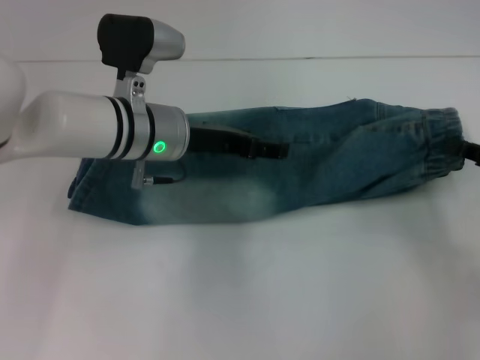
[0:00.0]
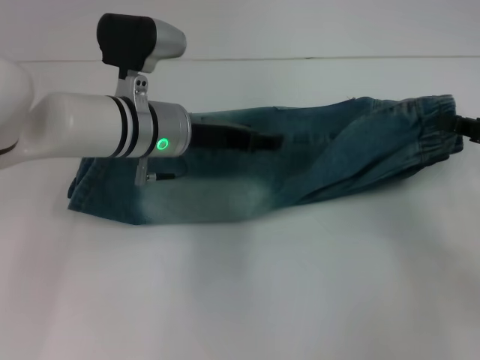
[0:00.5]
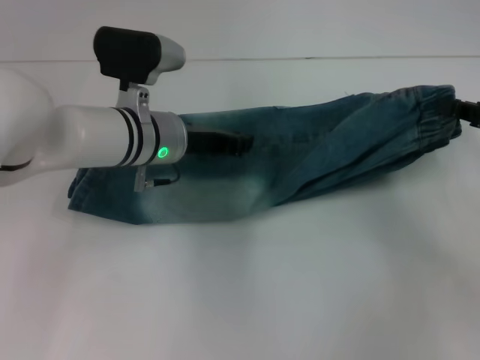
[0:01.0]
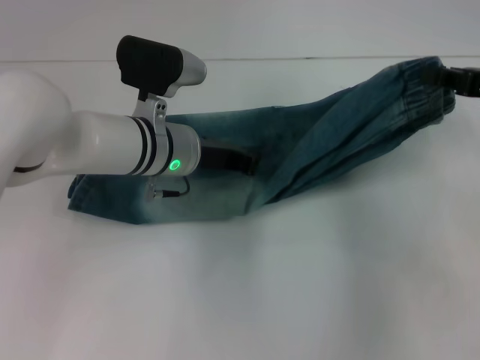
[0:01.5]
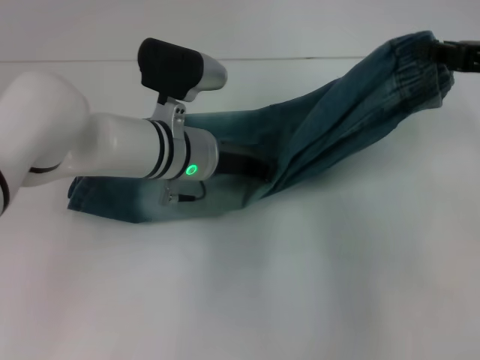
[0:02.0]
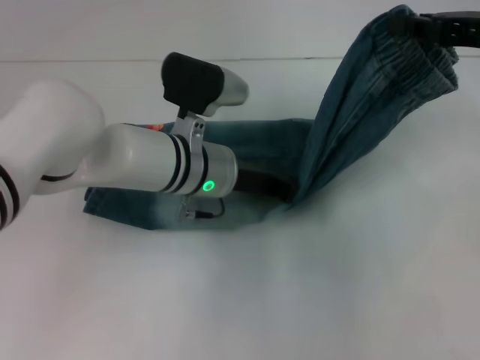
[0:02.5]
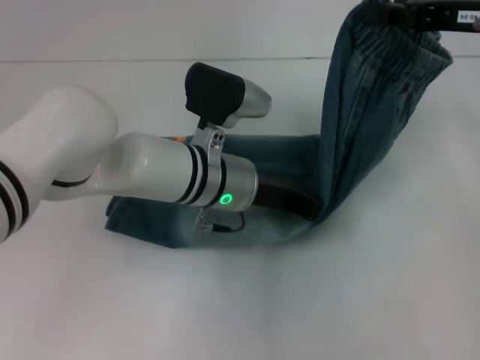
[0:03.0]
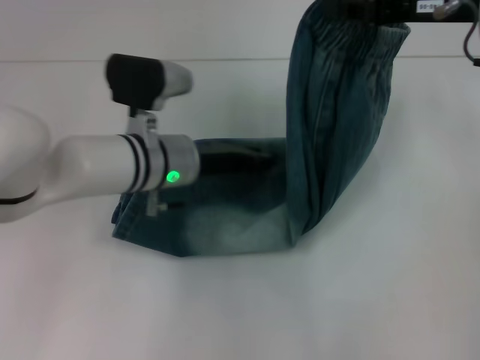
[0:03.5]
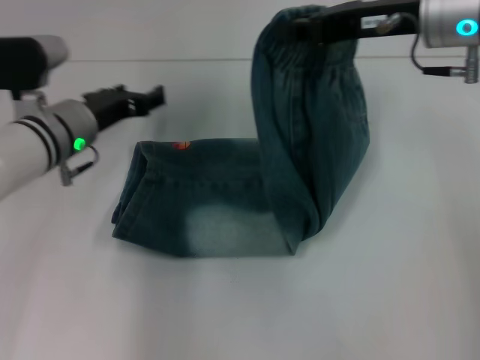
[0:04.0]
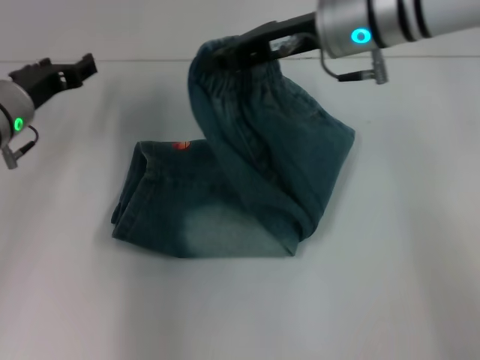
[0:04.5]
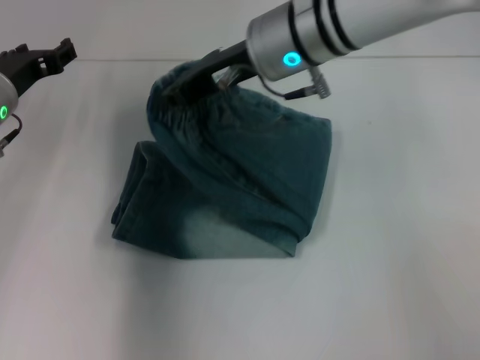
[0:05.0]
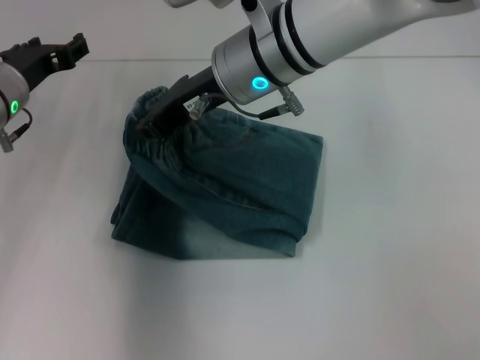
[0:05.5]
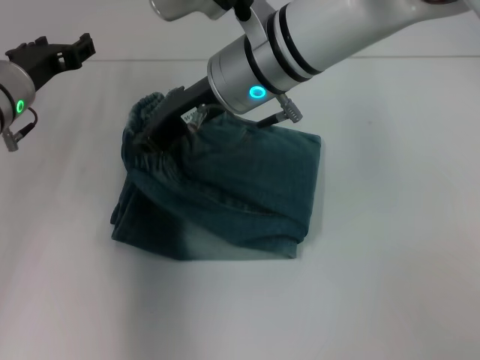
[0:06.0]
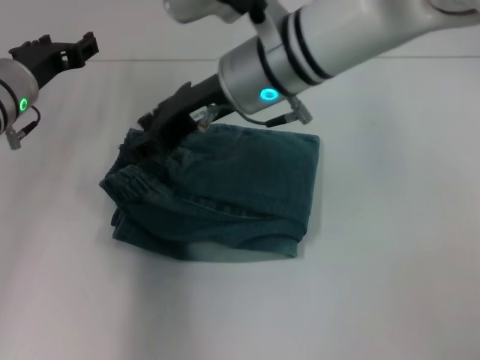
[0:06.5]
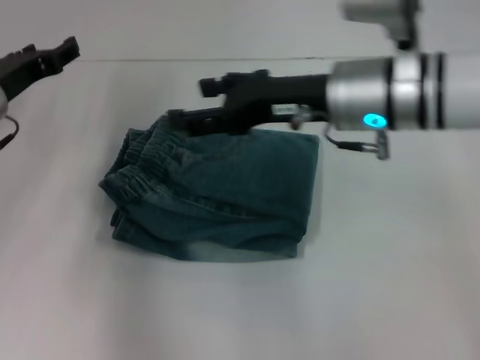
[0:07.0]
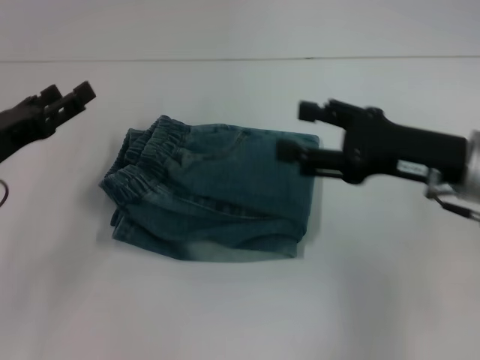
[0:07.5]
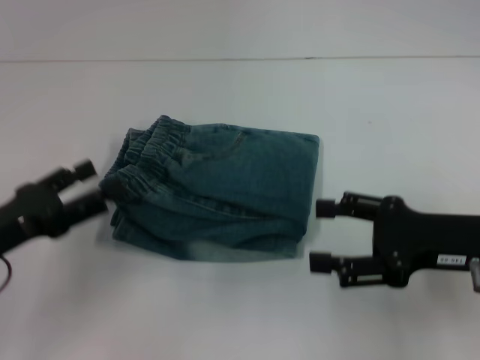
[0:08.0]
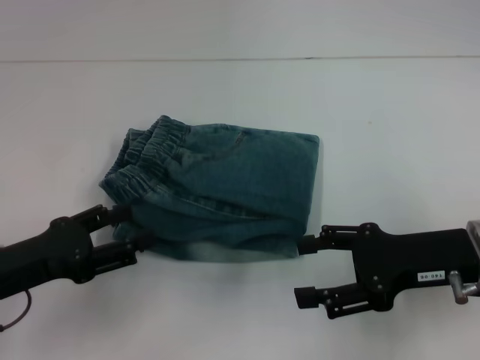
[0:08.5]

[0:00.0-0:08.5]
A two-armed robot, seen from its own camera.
Step, 0.0 to 3.0 s: Press the middle of the pants with your left hand.
Step, 3.5 to 8.0 s: Fold to the left with your right hand.
0.0 to 2.0 s: The right gripper goes about 10 cm upward and forward, while the left gripper closes its fingers.
2.0 to 4.0 s: Both grippers travel together to the left, about 10 cm. The left gripper opens up.
4.0 to 6.5 s: The left gripper moves approximately 5 cm. The right gripper travels to the left by some 15 cm, and opens up.
6.5 to 8.5 s: The left gripper heads backward, covering approximately 20 cm, while the right gripper shifts approximately 25 cm to the right, backward and downward, and opens its fingers.

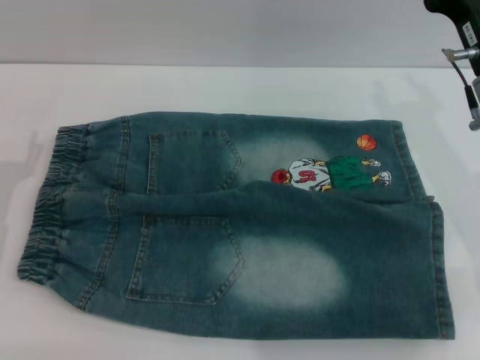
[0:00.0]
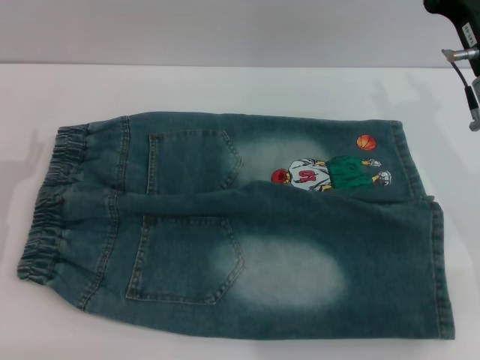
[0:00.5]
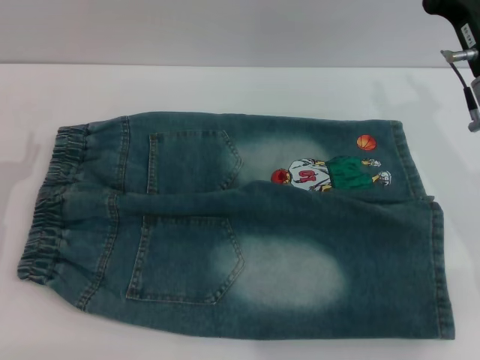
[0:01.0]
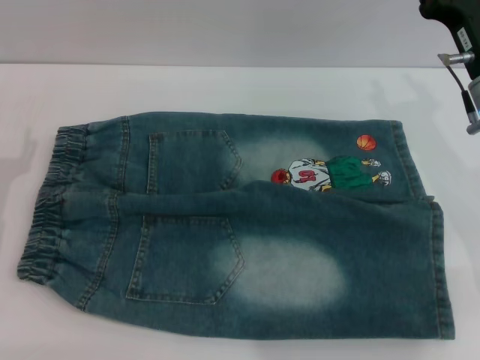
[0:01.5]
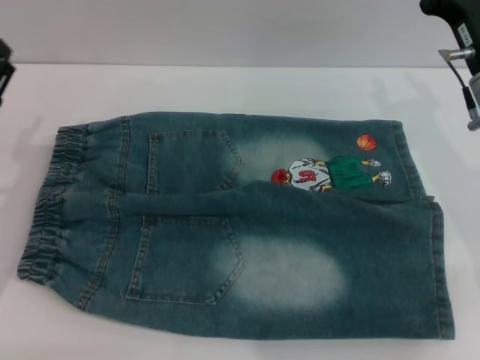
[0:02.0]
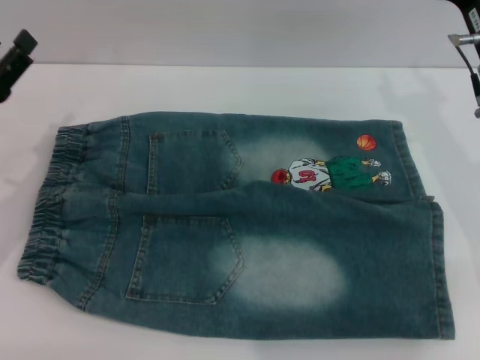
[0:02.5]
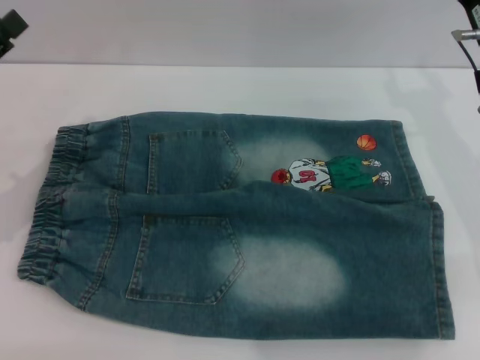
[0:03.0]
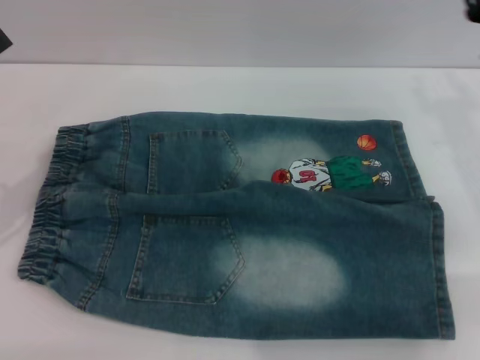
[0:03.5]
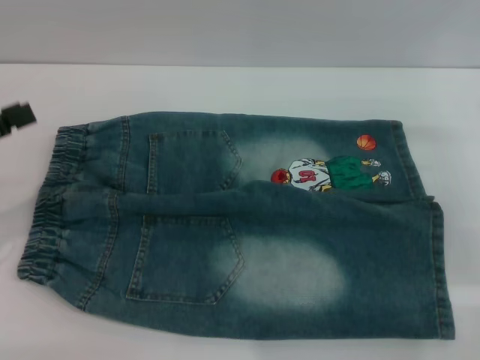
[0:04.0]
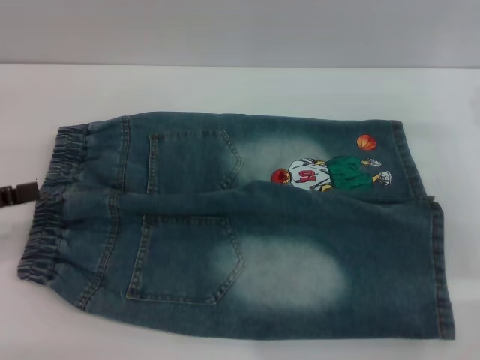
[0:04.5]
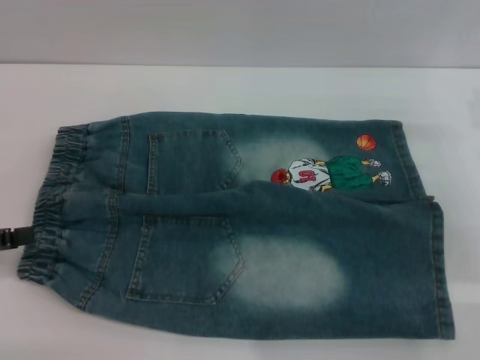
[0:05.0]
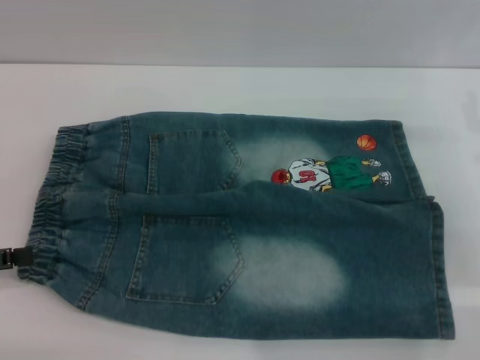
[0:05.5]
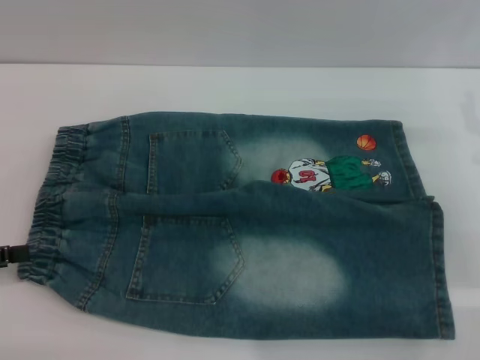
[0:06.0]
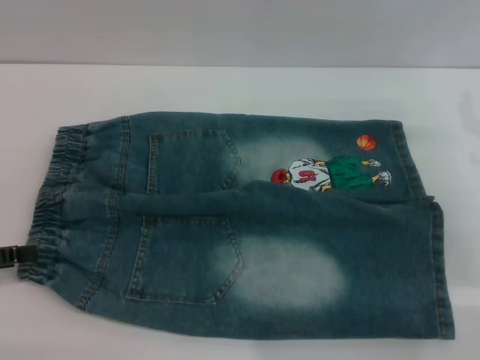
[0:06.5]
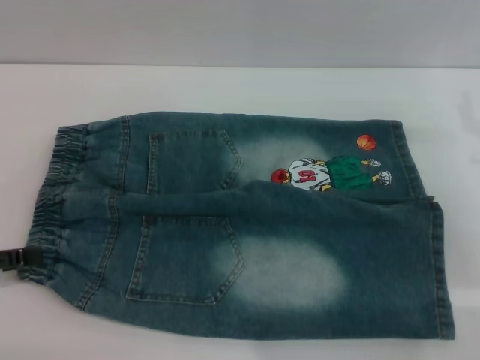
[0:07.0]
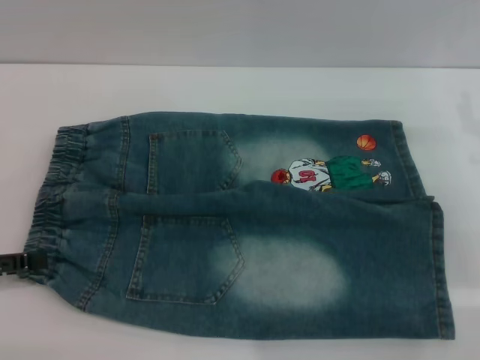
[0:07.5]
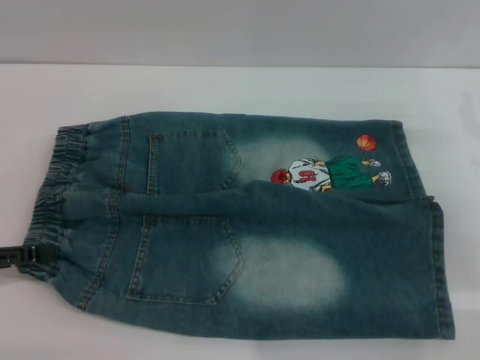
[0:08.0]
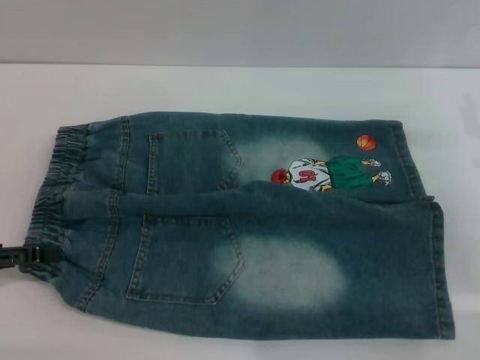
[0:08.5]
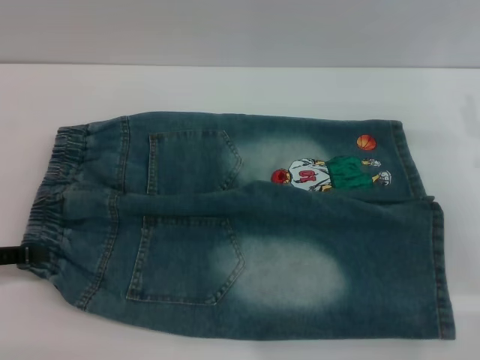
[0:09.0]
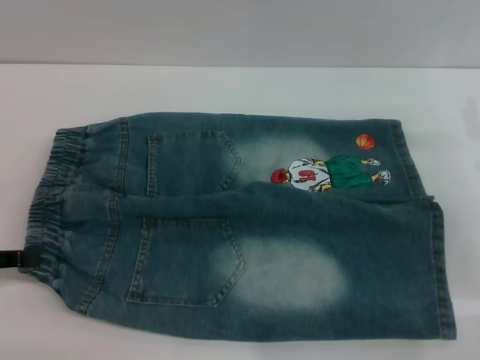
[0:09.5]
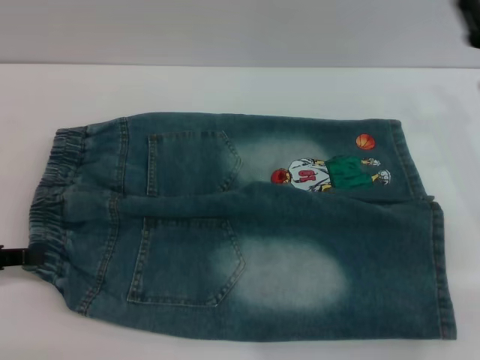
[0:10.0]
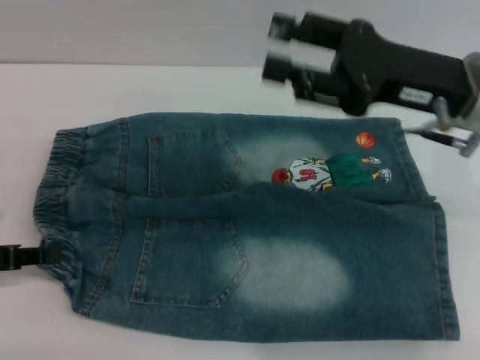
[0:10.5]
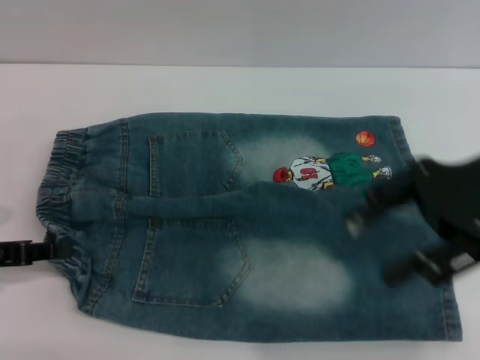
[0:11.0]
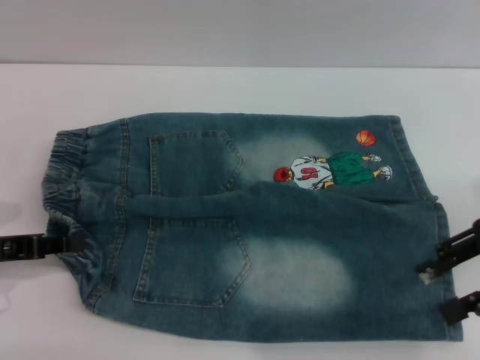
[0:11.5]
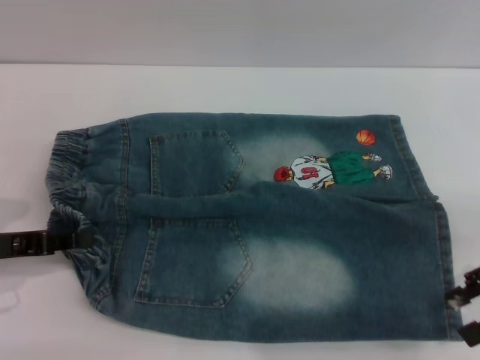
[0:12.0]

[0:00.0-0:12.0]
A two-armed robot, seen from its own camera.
0.0 to 2.0 s: The grippers stay close to where they were, moving slightly.
2.0 to 4.0 s: The right gripper travels to the right by about 10 cm, while the left gripper heads upward and to the left, covering about 10 cm.
4.0 to 6.0 s: The left gripper changes place by roughly 5 cm.
8.0 to 10.0 s: The left gripper closes up.
10.0 to 12.0 s: The right gripper travels to the right and backward by about 10 cm.

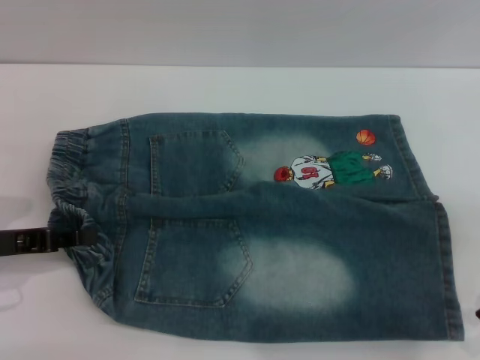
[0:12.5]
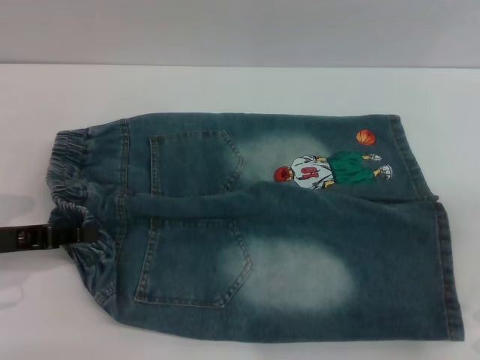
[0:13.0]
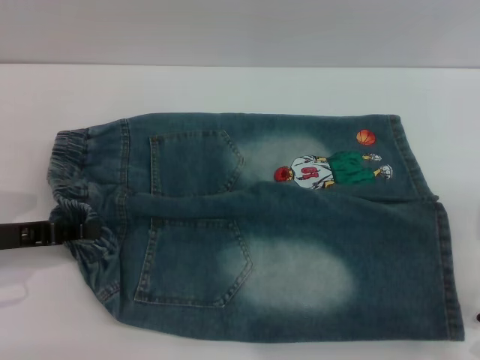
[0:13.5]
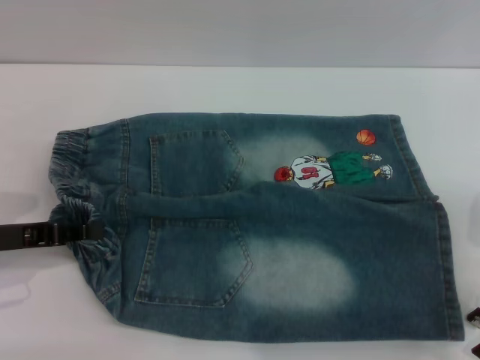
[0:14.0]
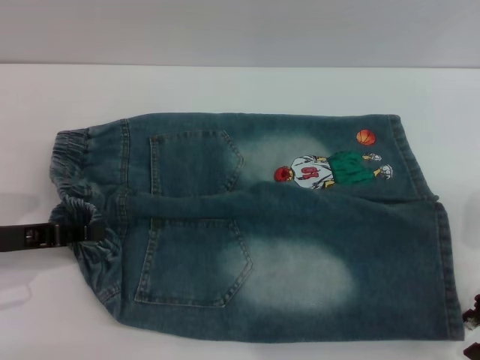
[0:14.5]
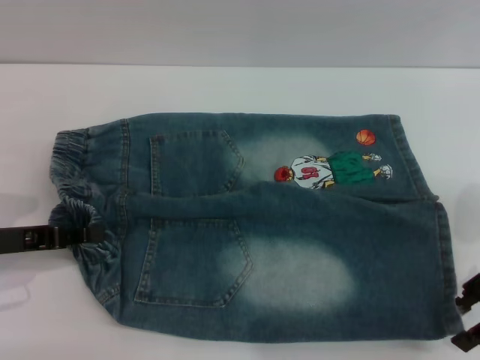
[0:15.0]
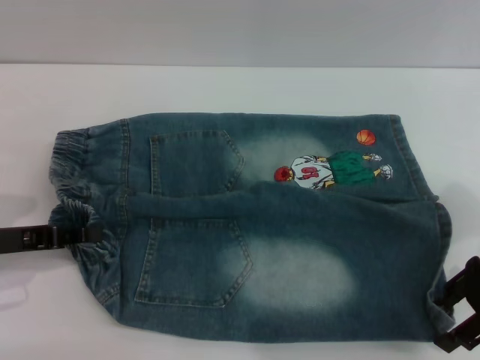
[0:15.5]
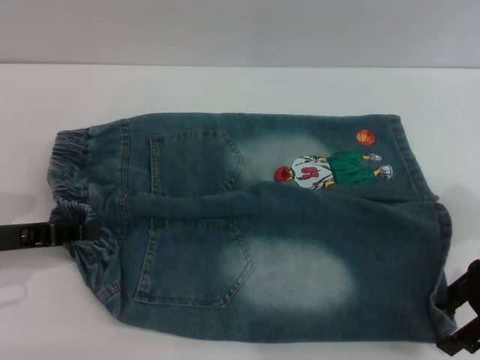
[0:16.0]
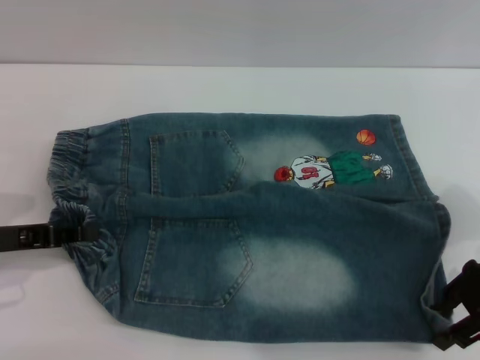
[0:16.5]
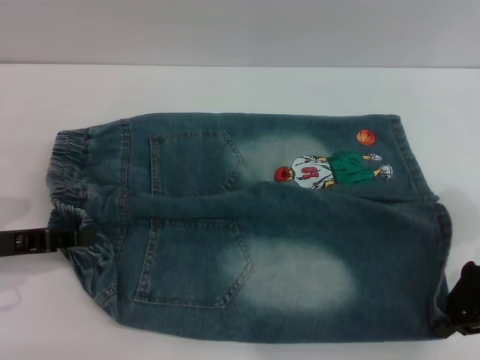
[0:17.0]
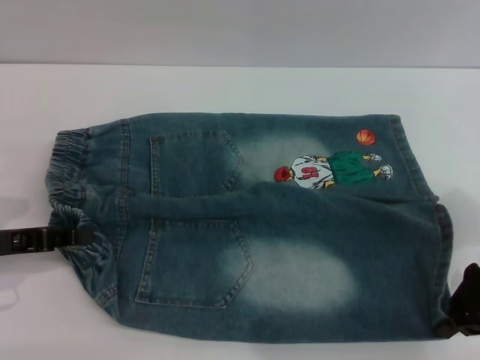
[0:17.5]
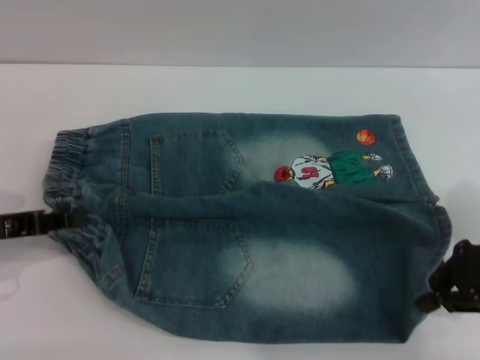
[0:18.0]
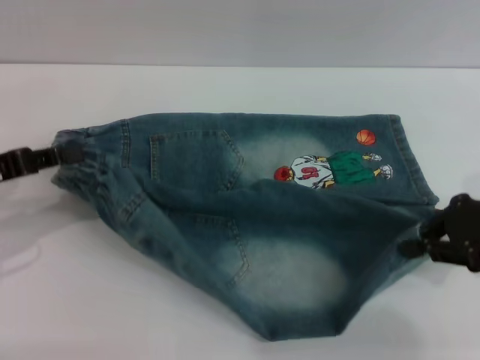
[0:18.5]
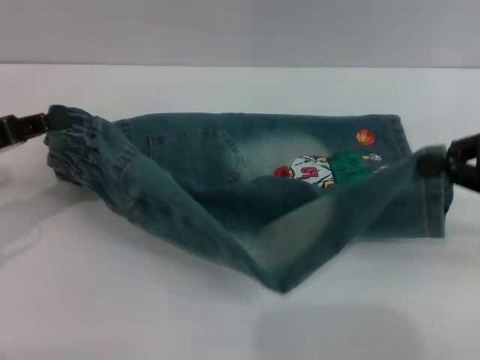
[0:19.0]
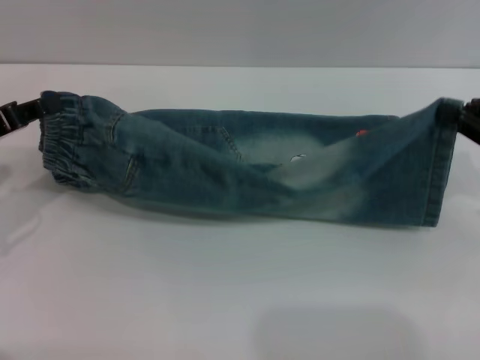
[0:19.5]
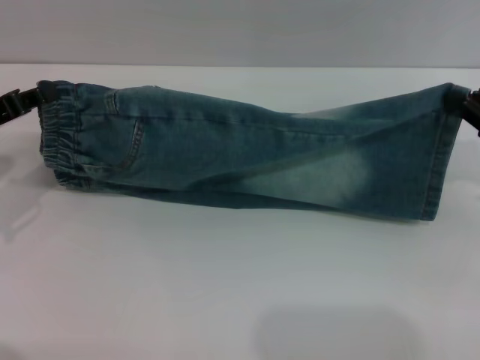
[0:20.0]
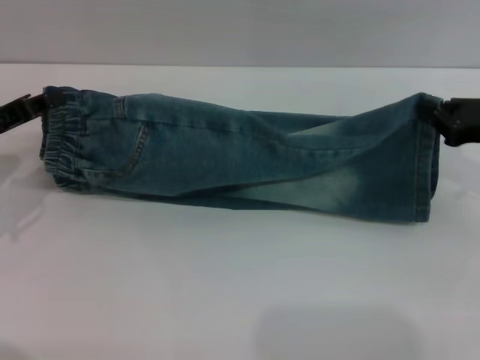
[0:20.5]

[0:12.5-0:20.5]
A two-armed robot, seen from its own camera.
12.5 to 14.5 s: There are only small adjustments of the grippers.
14.5 to 16.5 s: The grippers stay close to where they were, moving slightly.
16.5 to 18.5 s: The right gripper closes up.
18.5 to 20.5 s: The right gripper changes place by roughly 5 cm.
